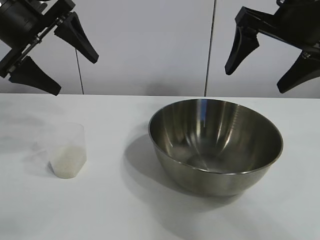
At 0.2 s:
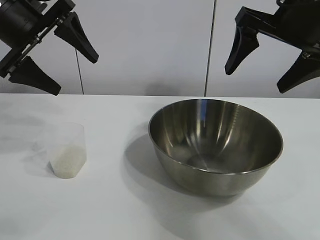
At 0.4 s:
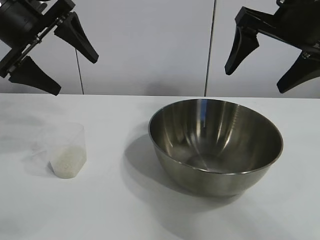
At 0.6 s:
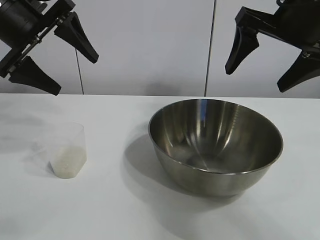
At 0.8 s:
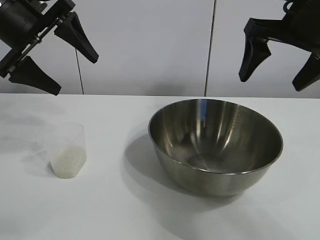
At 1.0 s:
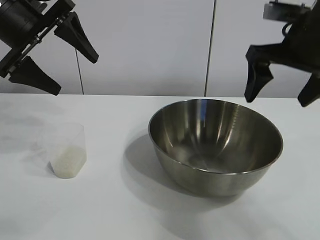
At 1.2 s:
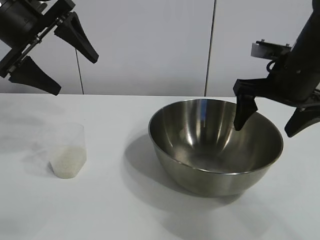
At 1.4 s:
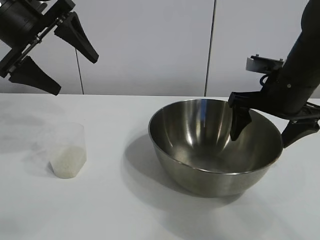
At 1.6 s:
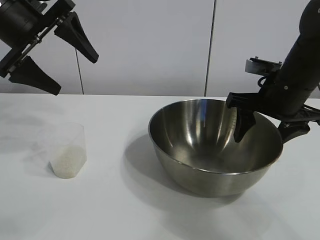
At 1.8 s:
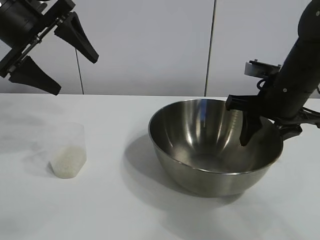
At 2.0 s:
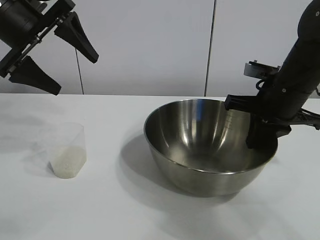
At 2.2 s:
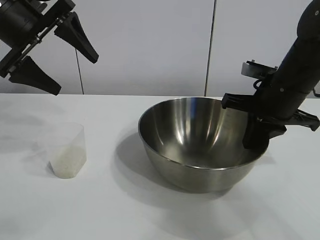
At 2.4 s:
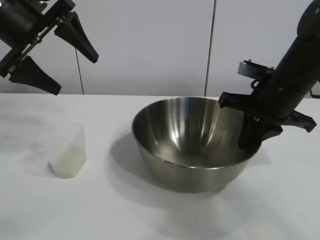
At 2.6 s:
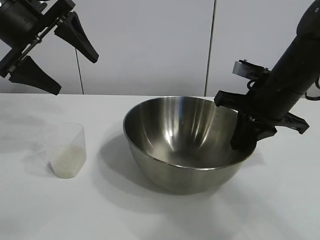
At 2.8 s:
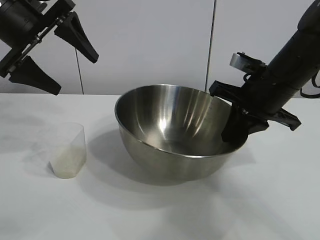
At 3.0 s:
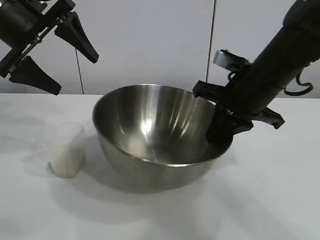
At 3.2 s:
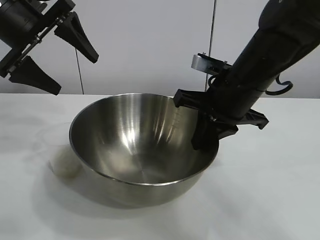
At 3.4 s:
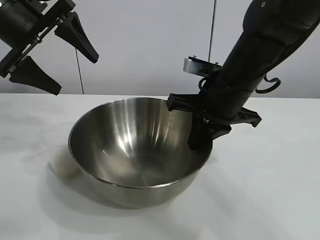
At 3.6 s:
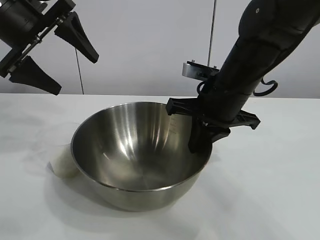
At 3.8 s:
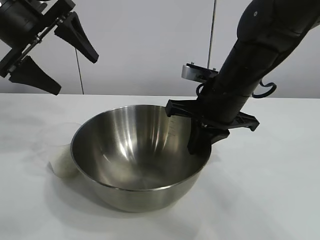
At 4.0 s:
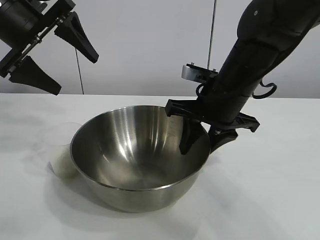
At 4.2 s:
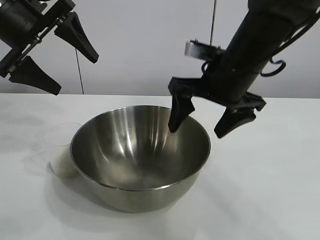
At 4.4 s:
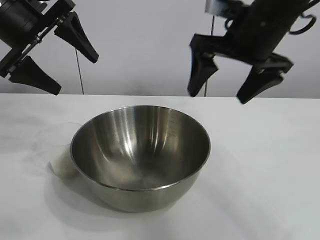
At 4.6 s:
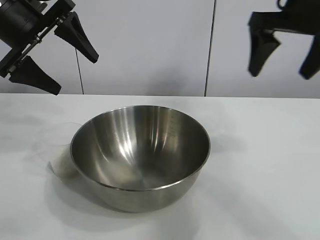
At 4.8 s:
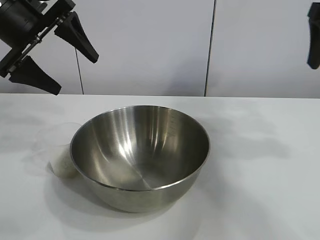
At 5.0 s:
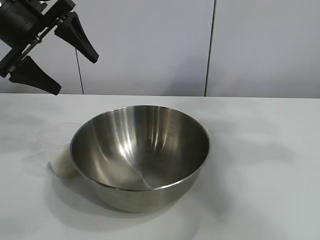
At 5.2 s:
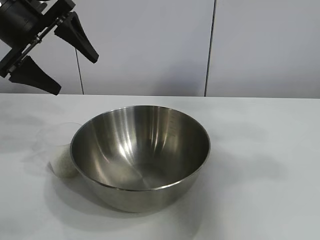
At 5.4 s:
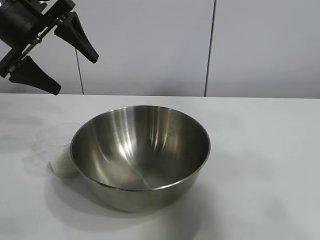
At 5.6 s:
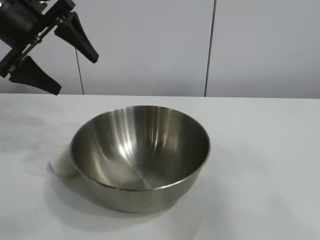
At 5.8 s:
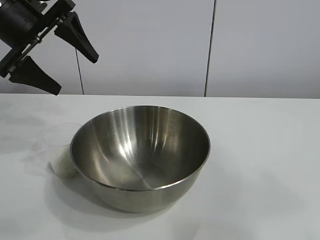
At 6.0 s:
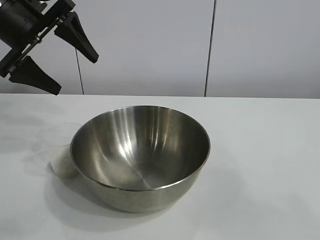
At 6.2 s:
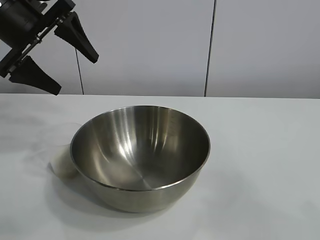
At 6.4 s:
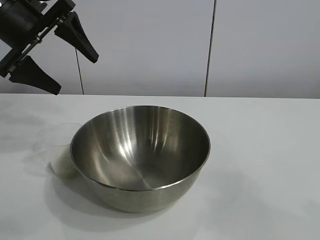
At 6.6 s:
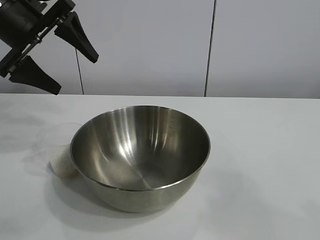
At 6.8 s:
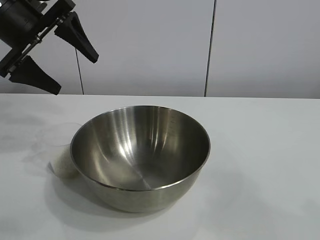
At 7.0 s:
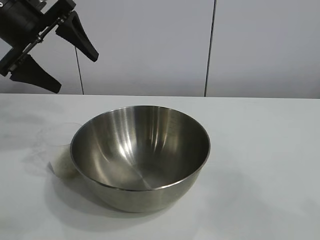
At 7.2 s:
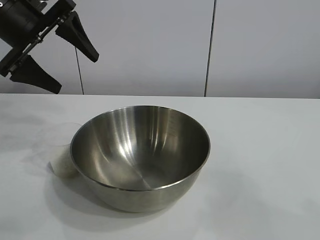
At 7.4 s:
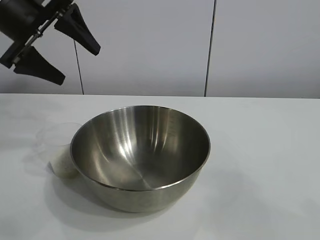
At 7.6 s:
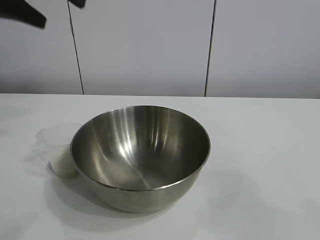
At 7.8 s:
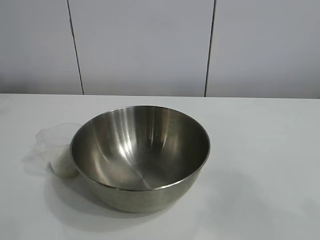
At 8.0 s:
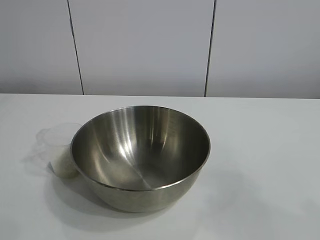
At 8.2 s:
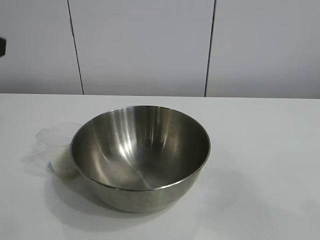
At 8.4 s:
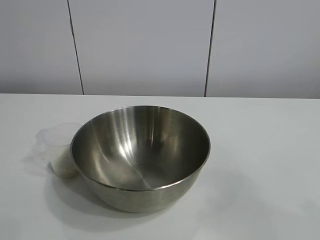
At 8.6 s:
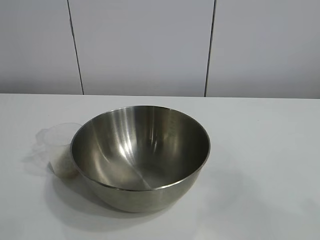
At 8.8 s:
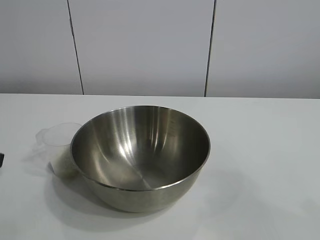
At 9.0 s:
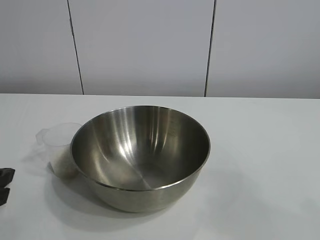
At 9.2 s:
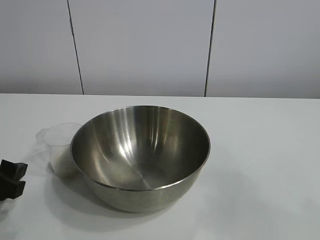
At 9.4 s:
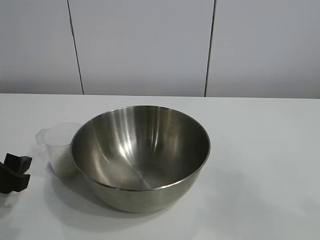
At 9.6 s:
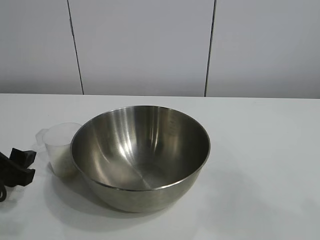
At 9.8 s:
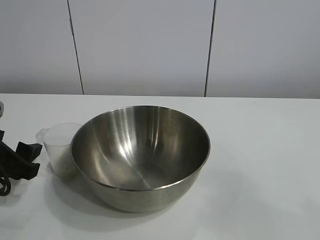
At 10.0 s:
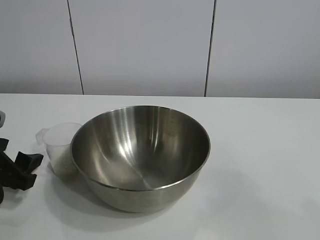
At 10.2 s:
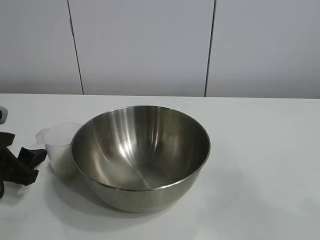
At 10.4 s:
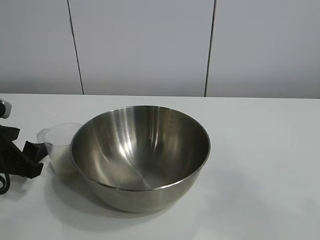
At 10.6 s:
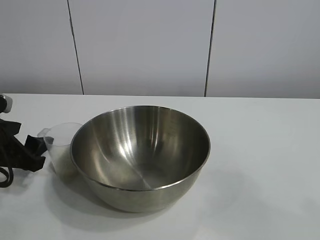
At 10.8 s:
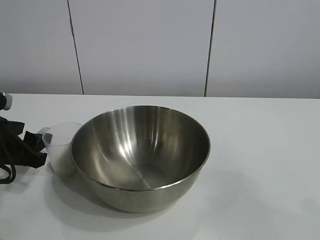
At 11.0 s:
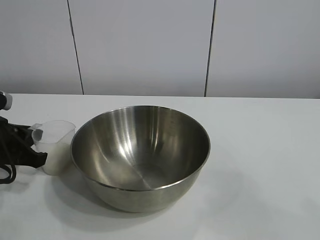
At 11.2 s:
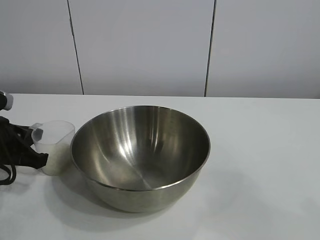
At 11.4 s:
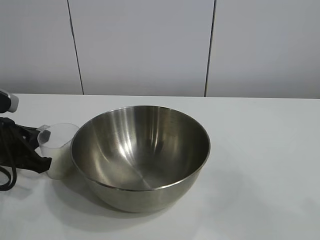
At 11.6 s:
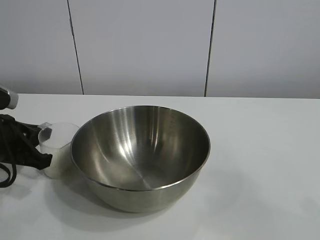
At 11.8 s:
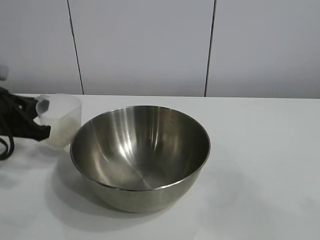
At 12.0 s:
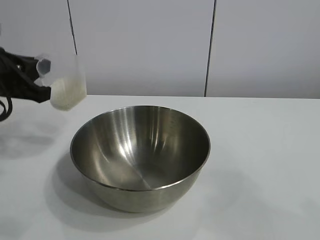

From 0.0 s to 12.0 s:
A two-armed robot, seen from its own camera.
Task of the whole recording: the right gripper grasp the rice container and place it in the center of the table, the left gripper grasp the rice scoop and pour the rice into the rice container.
Step, from 0.6 s to 4.0 s: Move the bowl in the center of view with right gripper.
Step, from 4.2 s to 11.2 s: Grasp the cup with rice in it with left gripper.

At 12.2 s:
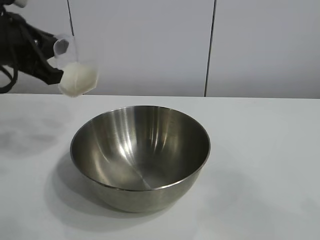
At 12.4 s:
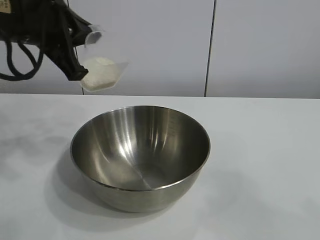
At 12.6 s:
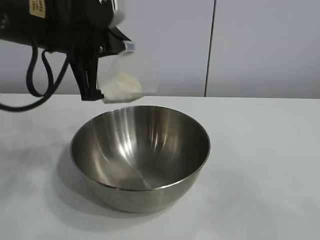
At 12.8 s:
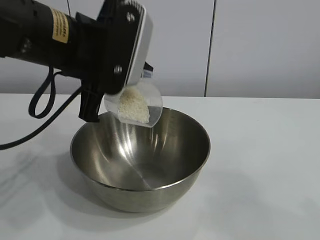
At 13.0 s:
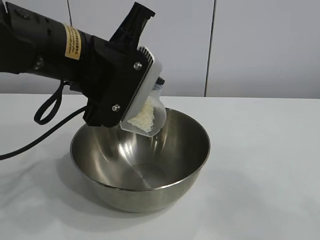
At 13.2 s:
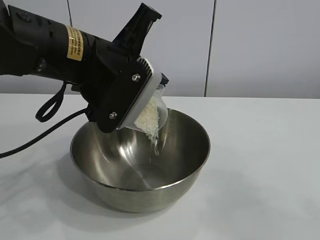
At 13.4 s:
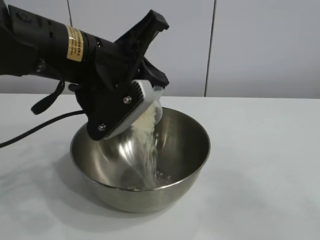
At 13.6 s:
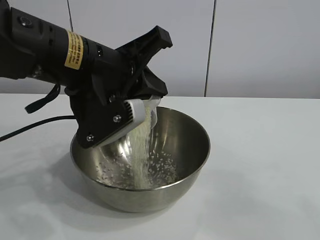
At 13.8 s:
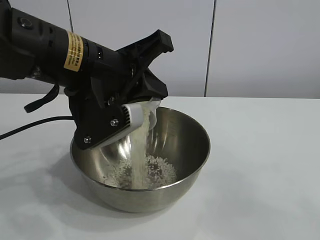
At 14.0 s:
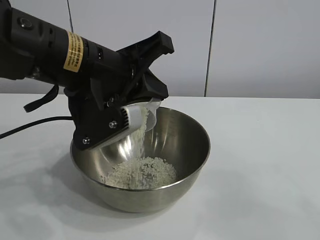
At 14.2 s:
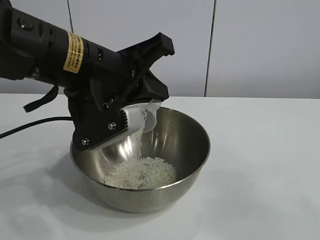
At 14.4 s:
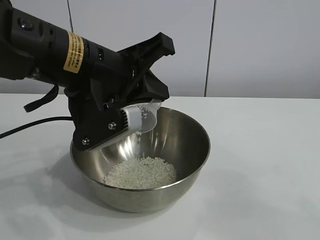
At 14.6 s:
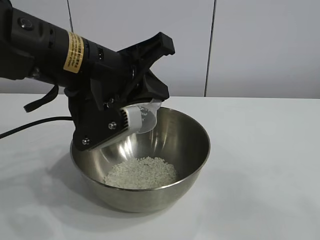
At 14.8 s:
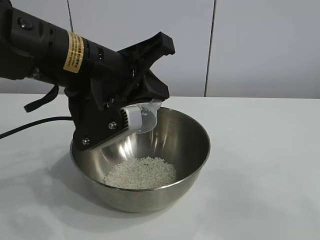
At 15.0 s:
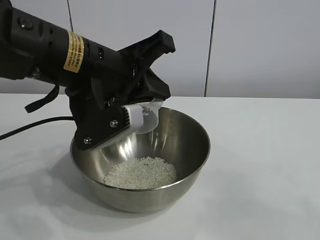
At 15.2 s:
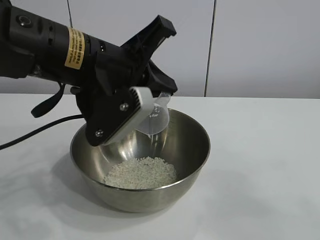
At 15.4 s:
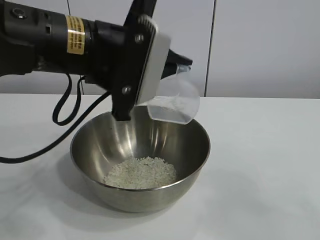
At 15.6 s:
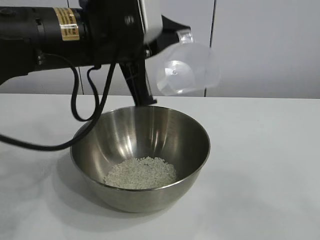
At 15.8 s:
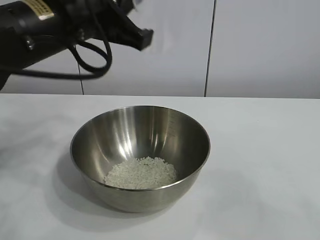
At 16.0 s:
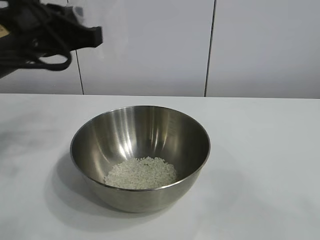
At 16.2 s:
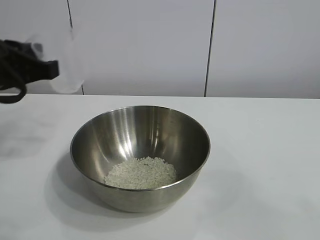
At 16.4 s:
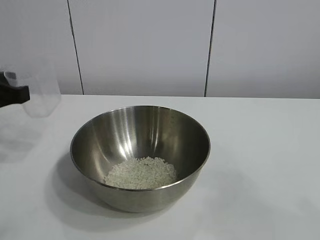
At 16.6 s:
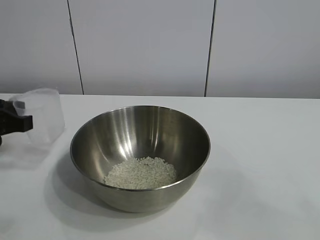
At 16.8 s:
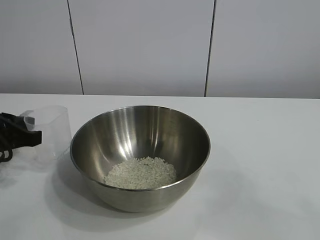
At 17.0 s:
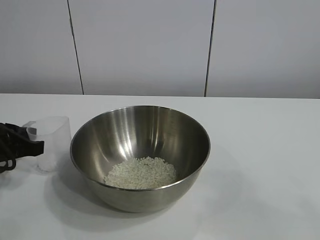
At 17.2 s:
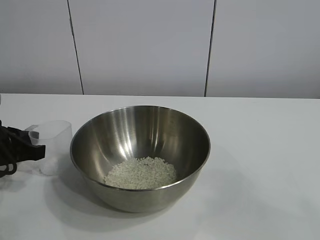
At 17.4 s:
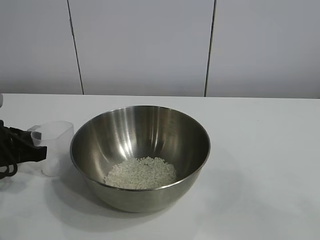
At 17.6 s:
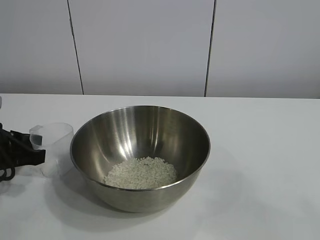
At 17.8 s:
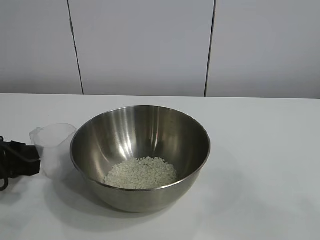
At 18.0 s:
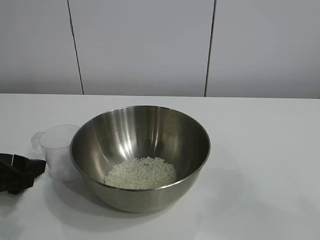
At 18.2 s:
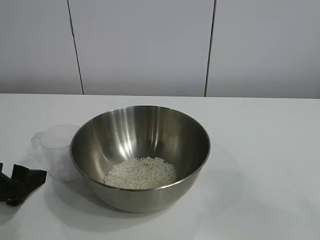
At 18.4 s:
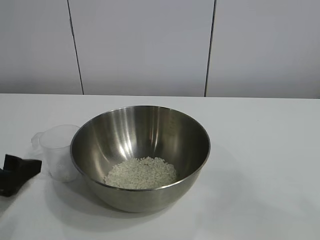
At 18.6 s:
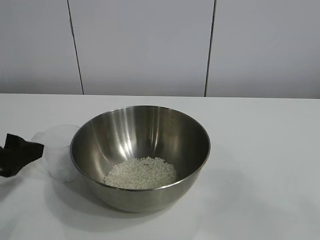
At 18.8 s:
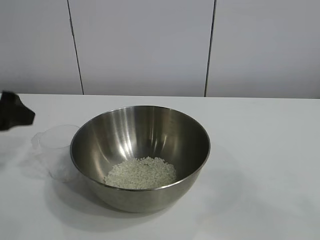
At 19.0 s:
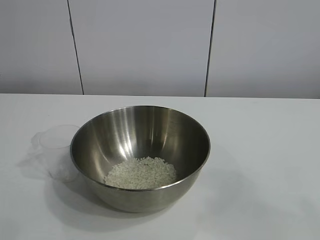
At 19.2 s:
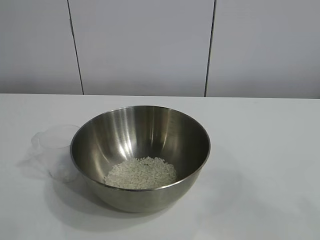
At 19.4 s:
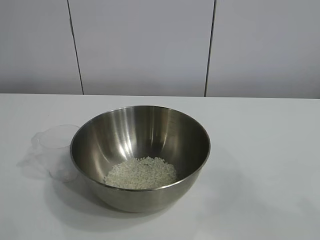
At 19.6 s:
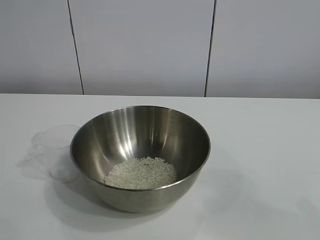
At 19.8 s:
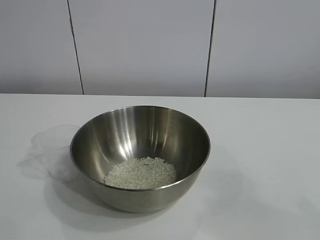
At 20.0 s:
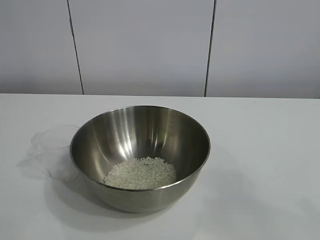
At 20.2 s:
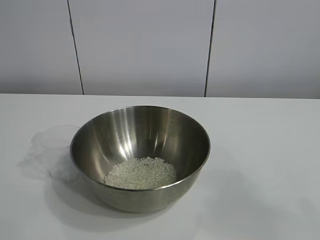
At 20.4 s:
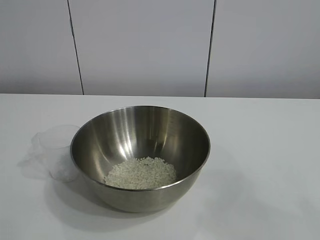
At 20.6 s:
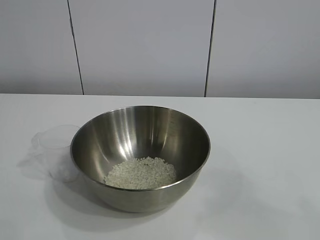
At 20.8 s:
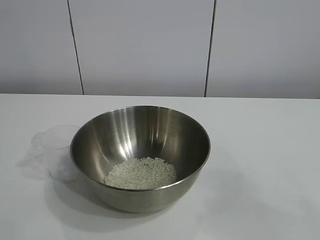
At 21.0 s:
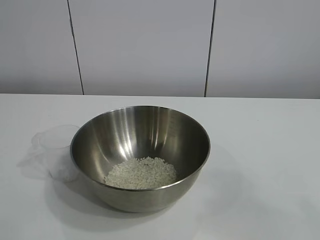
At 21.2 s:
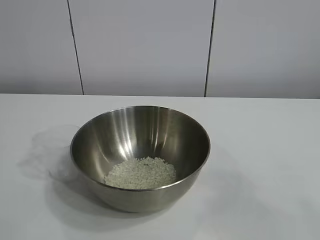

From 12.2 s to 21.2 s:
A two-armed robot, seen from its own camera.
Task of the whole recording: the right gripper grasp the rice container and place it in the center of the table, the left gripper grasp the rice scoop and pour the rice into the rice container.
Step, from 12.2 s to 14.8 s: Pour the rice from the cup into the bowl with the left gripper.
Step, from 15.2 s to 17.6 s: Place the cup on the table with the left gripper.
